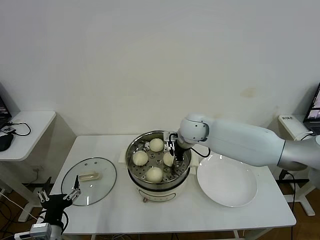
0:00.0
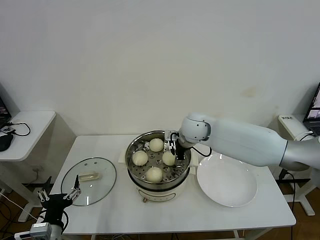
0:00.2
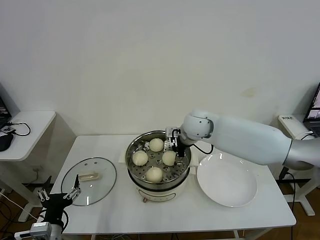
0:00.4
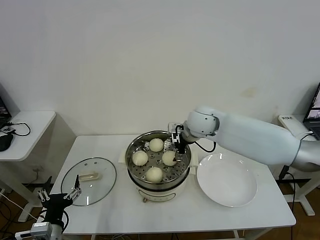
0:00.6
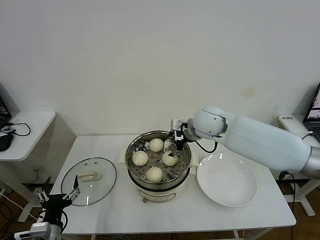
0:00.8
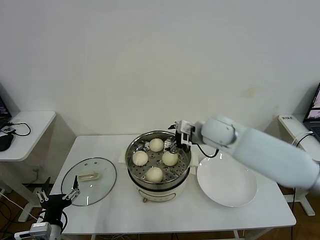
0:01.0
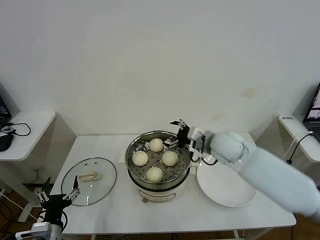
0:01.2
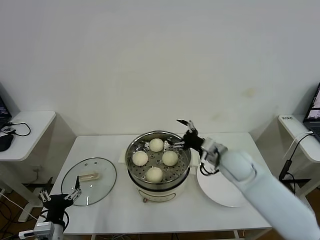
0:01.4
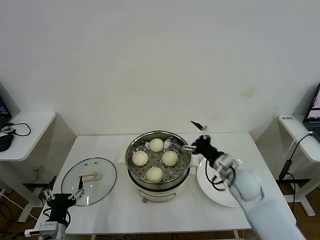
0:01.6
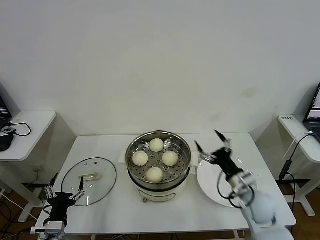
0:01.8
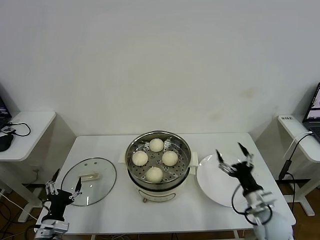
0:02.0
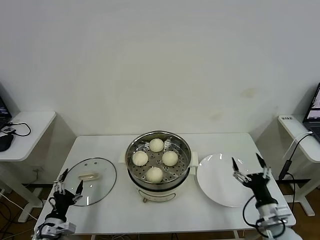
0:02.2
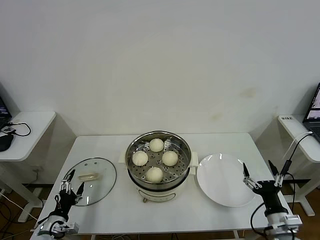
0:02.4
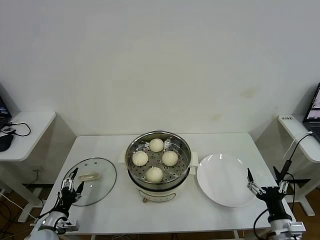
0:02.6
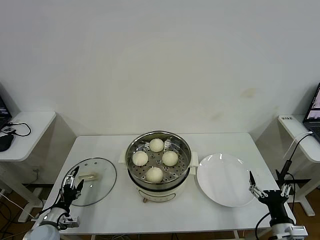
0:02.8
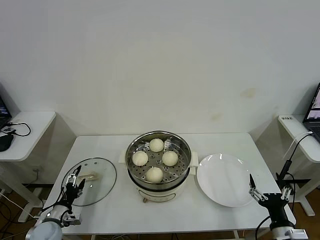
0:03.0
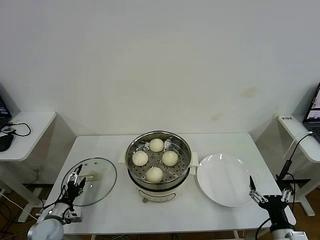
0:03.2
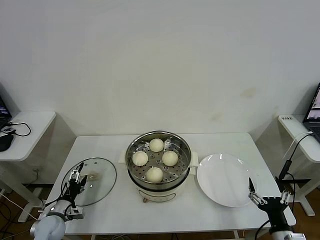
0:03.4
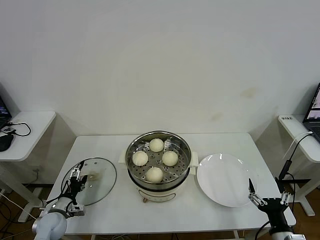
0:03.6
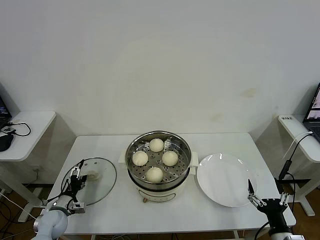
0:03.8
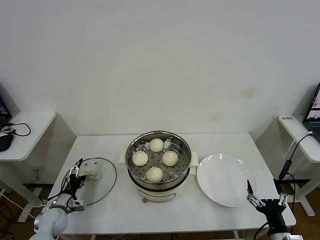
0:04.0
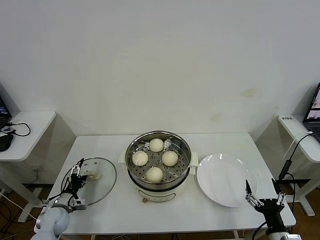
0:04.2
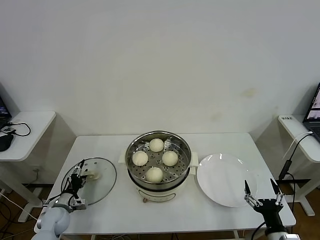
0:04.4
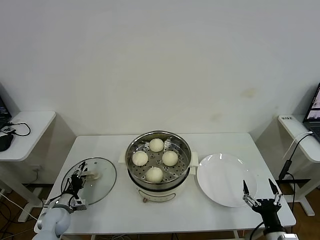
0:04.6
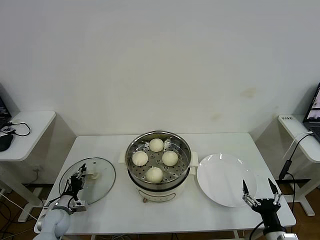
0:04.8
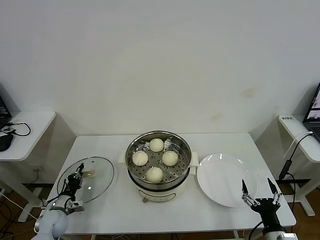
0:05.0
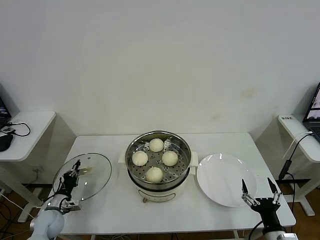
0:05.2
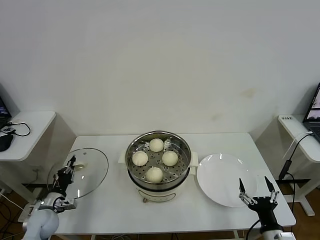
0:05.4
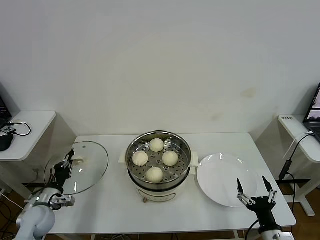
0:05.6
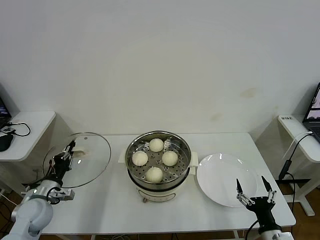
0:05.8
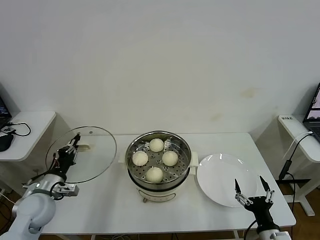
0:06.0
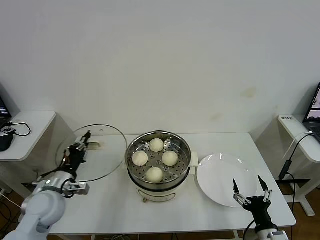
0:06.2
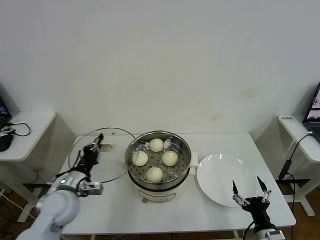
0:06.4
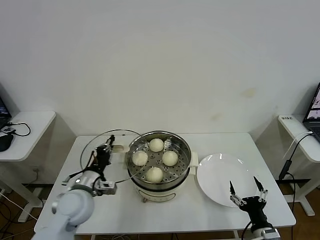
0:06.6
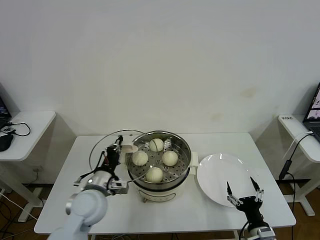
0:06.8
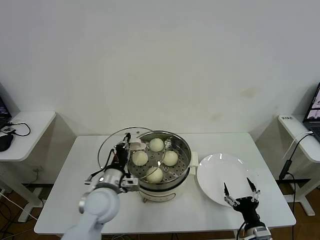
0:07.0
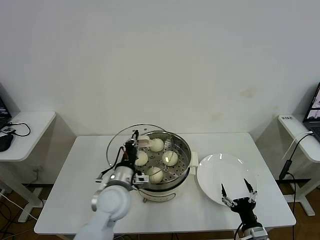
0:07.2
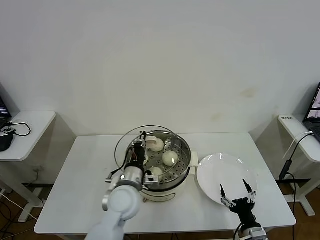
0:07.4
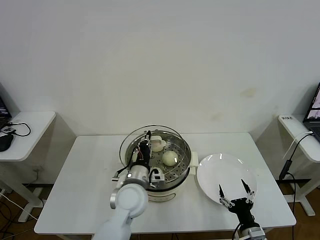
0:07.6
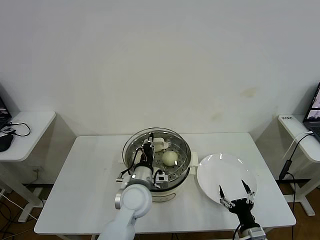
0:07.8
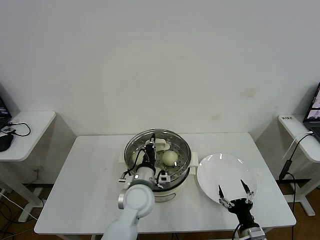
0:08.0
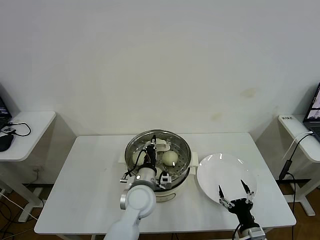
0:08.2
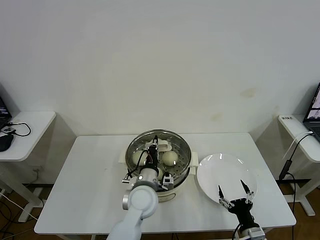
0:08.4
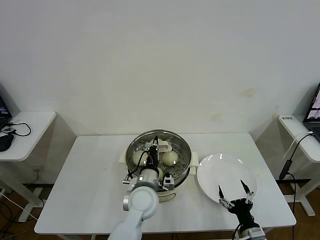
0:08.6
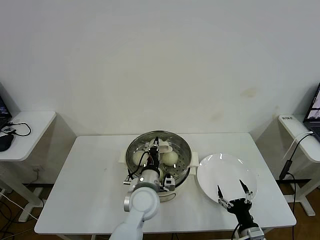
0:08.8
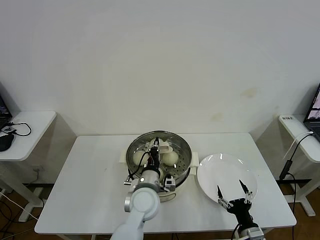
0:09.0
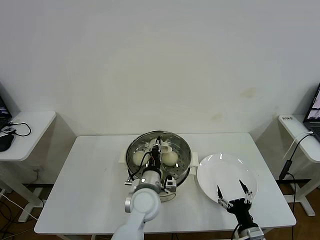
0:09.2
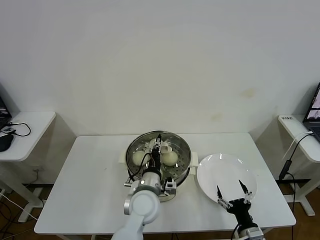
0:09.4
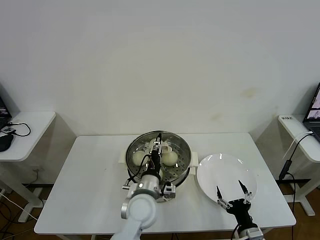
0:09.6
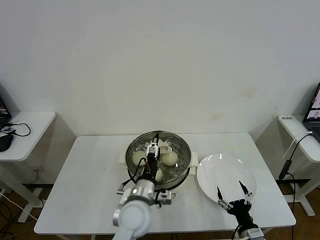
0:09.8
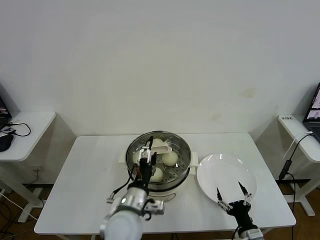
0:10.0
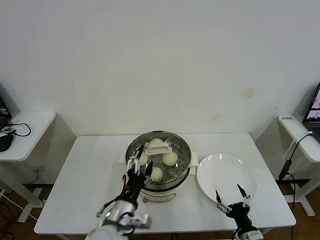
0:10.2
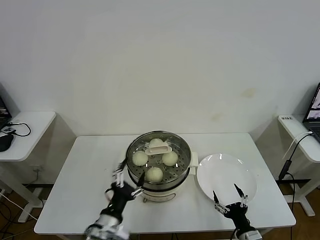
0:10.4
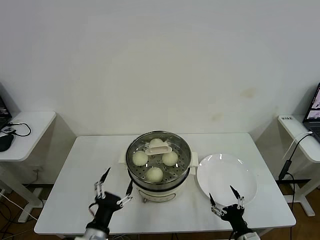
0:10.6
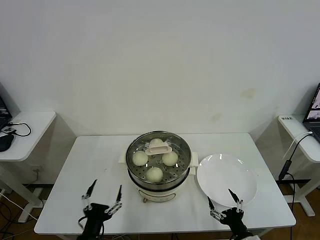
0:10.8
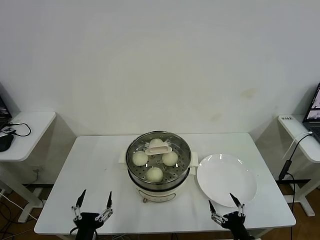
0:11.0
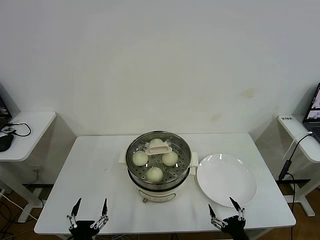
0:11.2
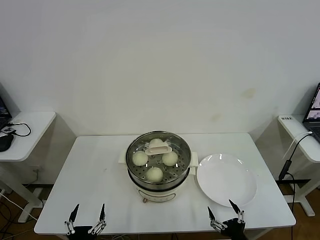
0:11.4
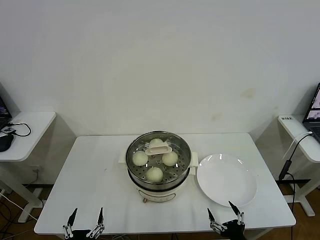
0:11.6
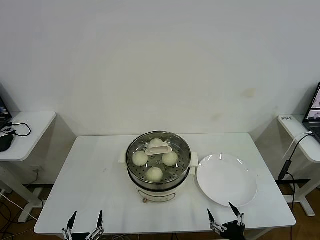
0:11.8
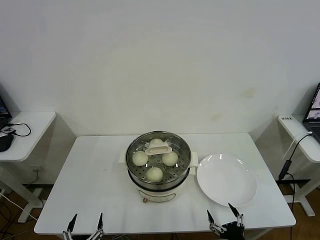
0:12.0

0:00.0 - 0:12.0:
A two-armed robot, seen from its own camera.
Task of the whole recording: take steamed baozi put them in steamer then cover it.
Step, 0:00.6 - 0:05.0: Grasp the pot lid with left gripper.
Step, 0:05.2 - 0:09.6: Place the pot lid on the steamer with left gripper.
0:00.0 - 0:01.6: The right gripper is displaced to the right, backward and downward by about 25 cm, and opens.
0:01.6 - 0:03.0: The right gripper shifts approximately 25 cm backward, to the right and downward. Meanwhile the left gripper is displaced forward, to the left and downward by some 15 cm.
0:03.0 - 0:04.4: The left gripper moves forward, some 5 cm.
0:04.4 - 0:06.0: The left gripper is displaced upward by roughly 15 cm, and closes.
0:06.0 - 0:07.6: The left gripper travels to the right by about 30 cm; the right gripper moves approximately 5 cm.
0:07.6 - 0:09.0: The left gripper ends up approximately 5 cm from where it was.
0:09.0 - 0:10.4: The left gripper heads backward and to the left, covering roughly 15 cm, and opens.
0:10.4 - 0:12.0: The left gripper travels backward, downward and to the left by roughly 20 cm; the right gripper shifts roughly 5 cm backward.
